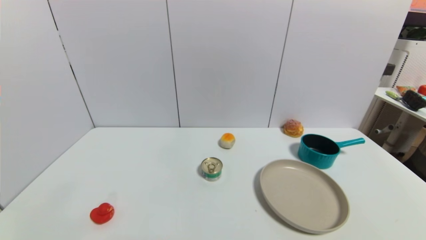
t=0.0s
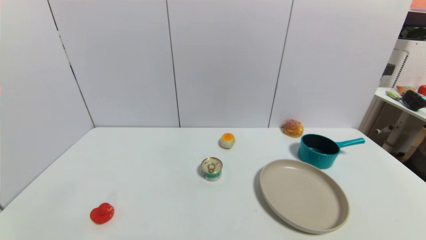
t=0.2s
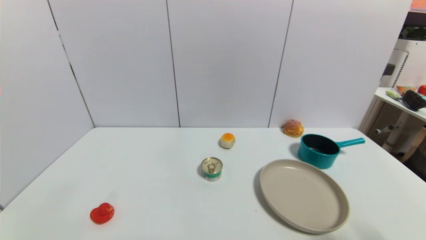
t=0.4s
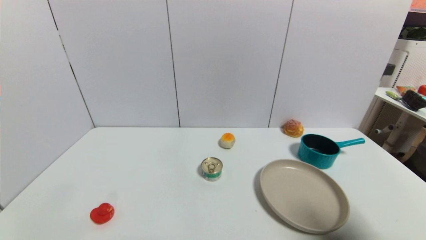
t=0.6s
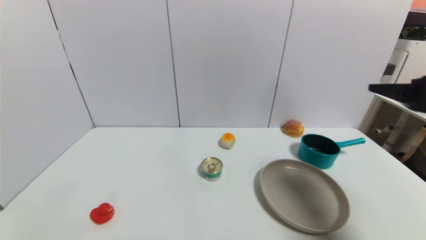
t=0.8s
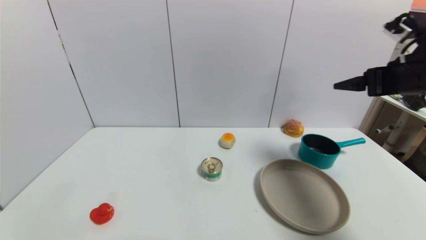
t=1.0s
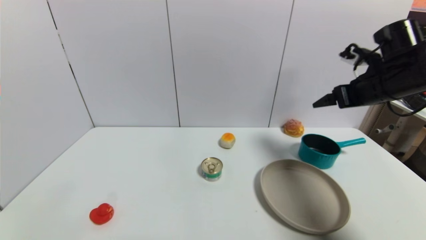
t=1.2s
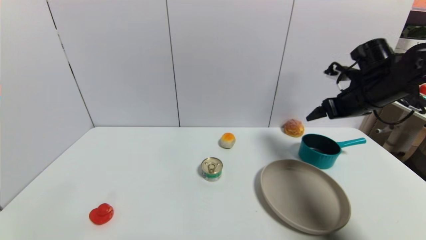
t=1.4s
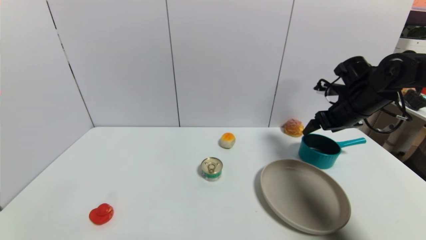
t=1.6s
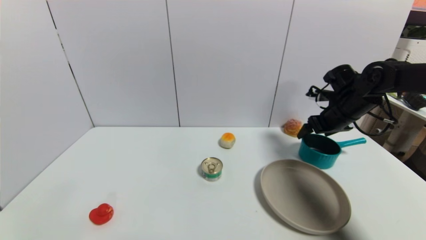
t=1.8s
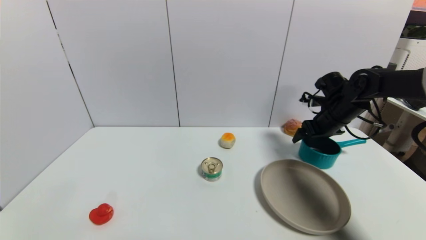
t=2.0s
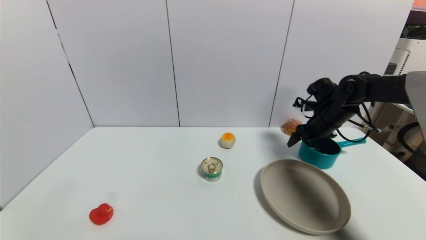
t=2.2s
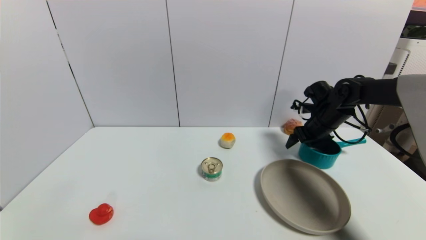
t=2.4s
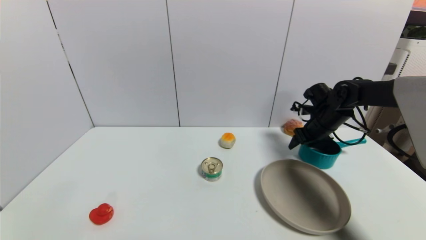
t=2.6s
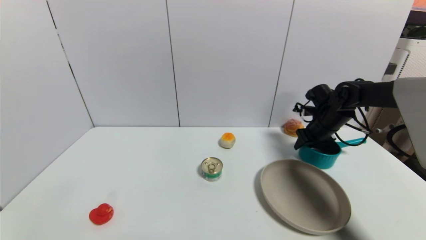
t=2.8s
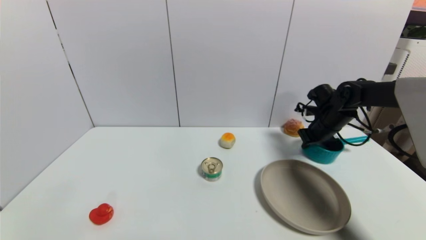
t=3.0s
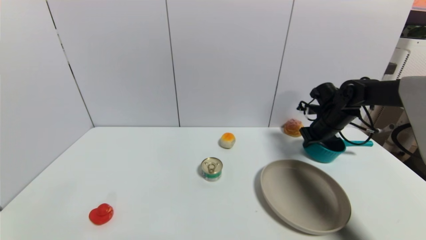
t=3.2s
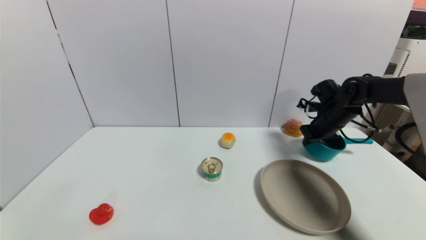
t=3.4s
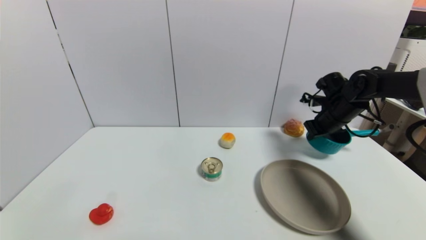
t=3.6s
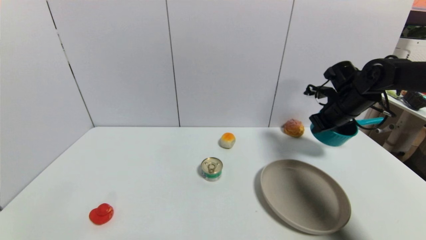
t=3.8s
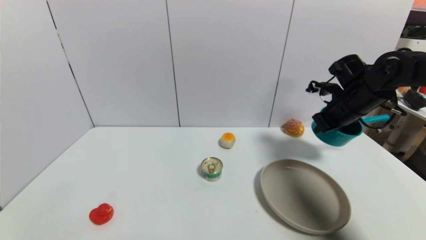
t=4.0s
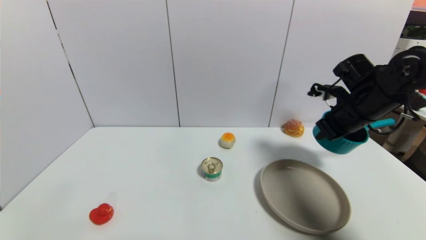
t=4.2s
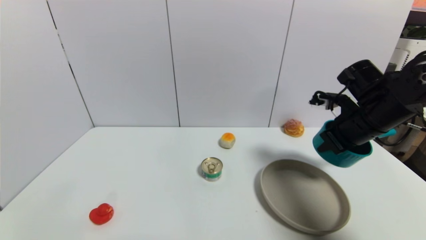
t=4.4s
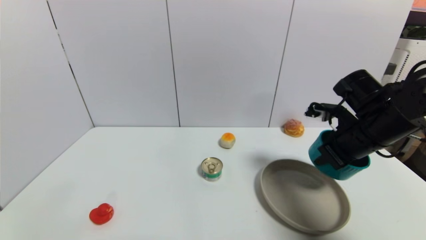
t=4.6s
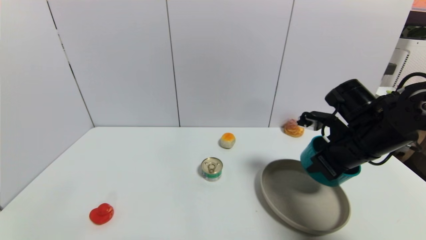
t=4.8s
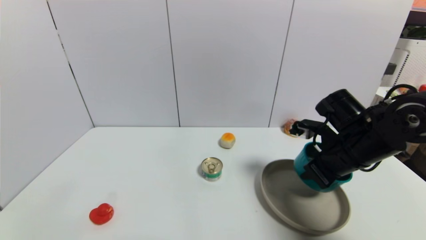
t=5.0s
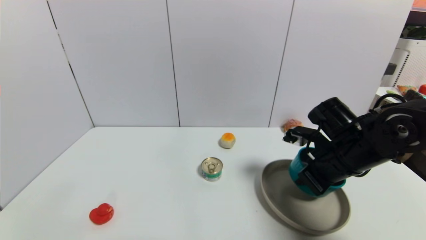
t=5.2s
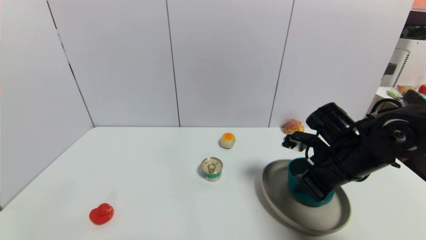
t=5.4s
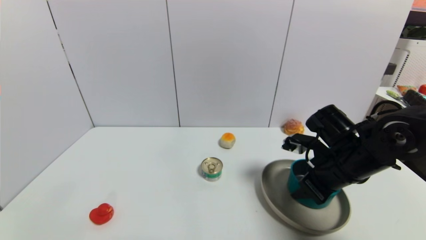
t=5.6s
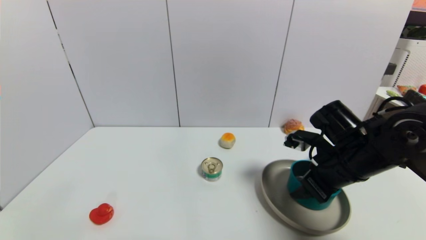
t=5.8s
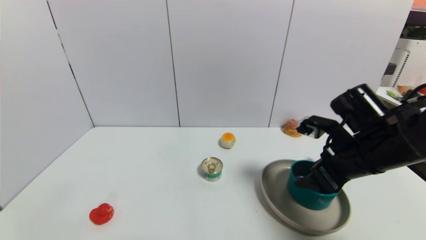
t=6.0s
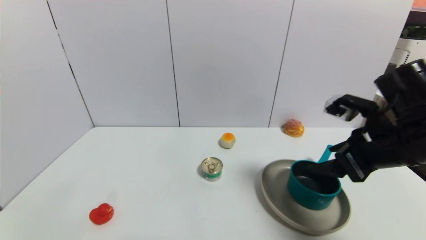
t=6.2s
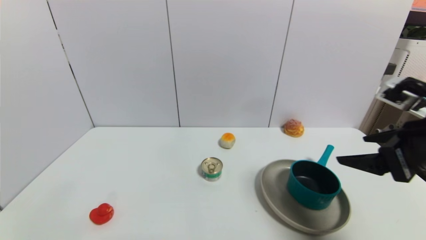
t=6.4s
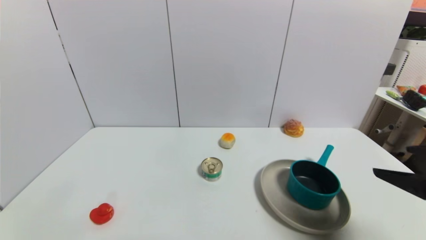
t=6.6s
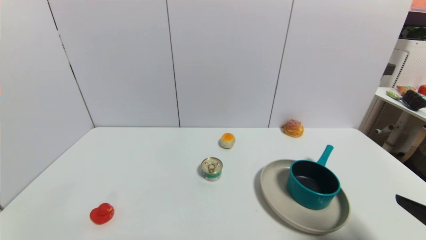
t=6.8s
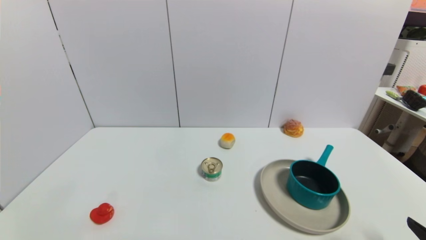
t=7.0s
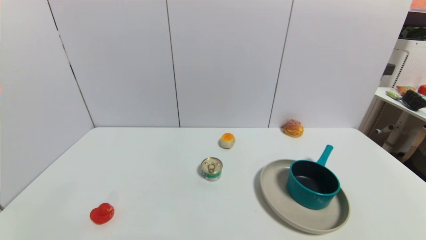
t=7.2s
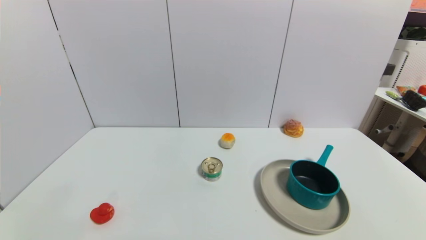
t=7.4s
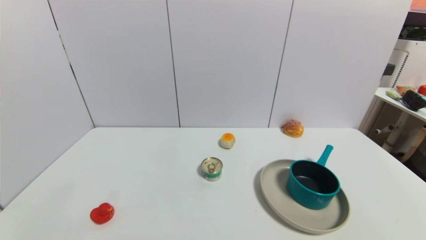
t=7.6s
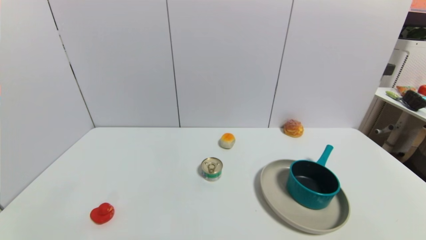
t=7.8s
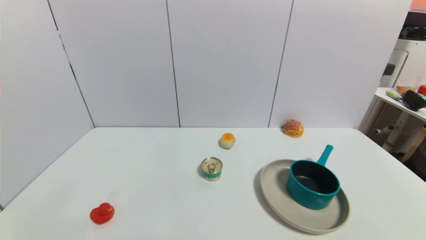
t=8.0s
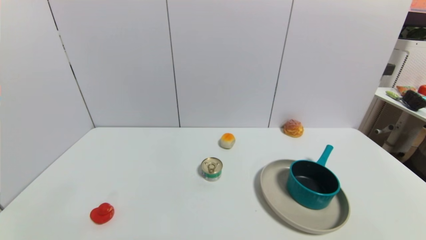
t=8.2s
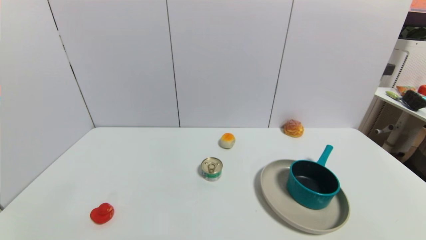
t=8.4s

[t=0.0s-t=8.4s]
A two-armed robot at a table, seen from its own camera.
Task of the whole recording: use a gripper to pick the target object and place on the brown plate.
Step, t=0.0s to t=3.0s: Grasp the blue pot with the right gripper.
Step, t=3.2s to t=5.8s: Place the blue pot on the brown plate with the right gripper.
t=0.0s to t=1.4s: The right gripper travels forward by approximately 40 cm.
t=1.4s to t=2.8s: The right gripper shifts about 10 cm downward and forward, and closes up.
t=2.8s to t=4.2s: The right gripper goes approximately 15 cm backward and upward, and closes up.
t=4.2s to t=5.6s: The right gripper shifts about 10 cm backward, downward and to the left, and opens up.
t=5.6s to t=7.0s: The right gripper shifts about 25 cm backward and to the right, and opens its fingers.
